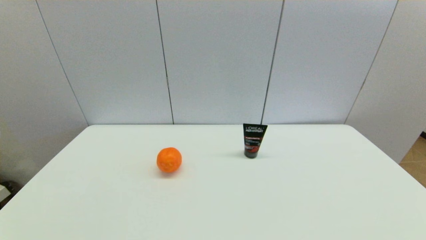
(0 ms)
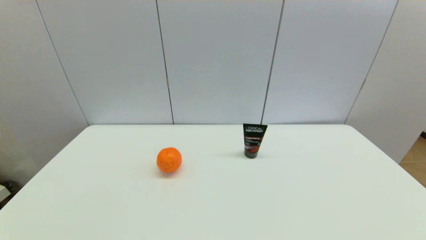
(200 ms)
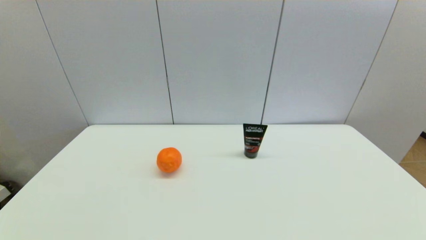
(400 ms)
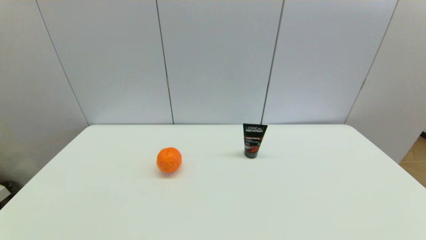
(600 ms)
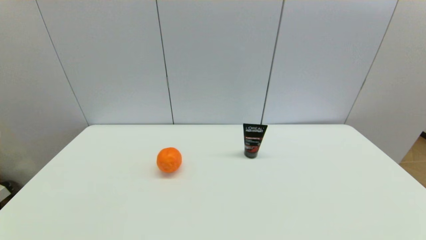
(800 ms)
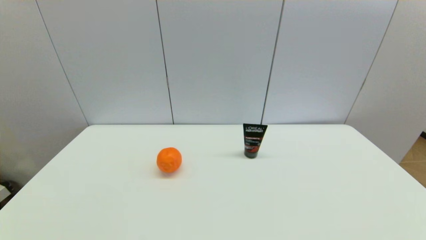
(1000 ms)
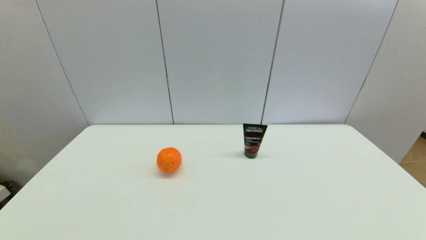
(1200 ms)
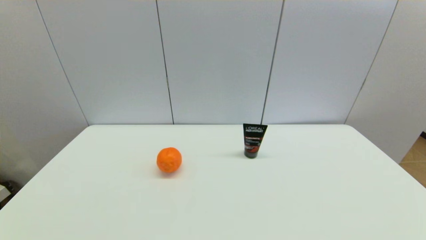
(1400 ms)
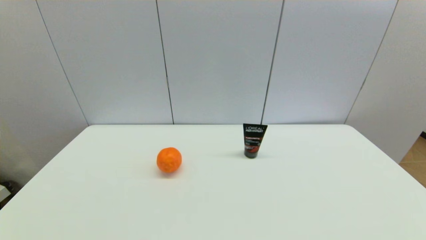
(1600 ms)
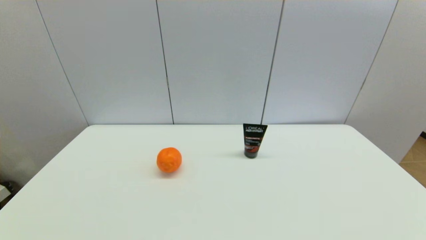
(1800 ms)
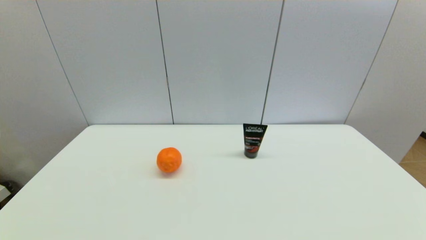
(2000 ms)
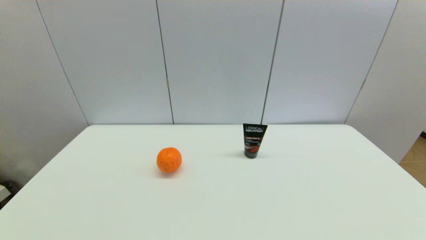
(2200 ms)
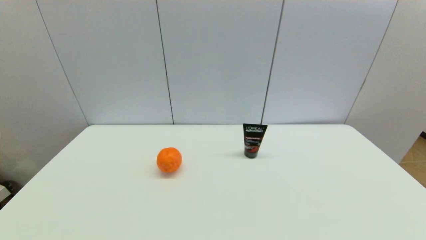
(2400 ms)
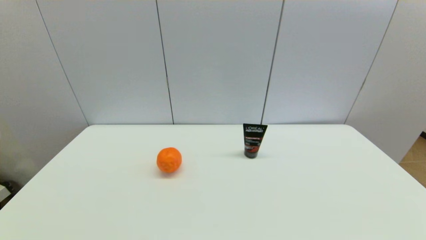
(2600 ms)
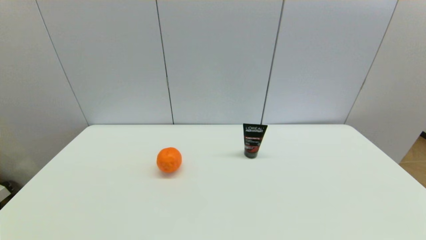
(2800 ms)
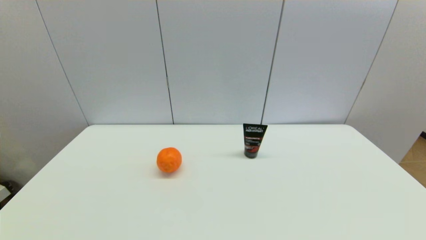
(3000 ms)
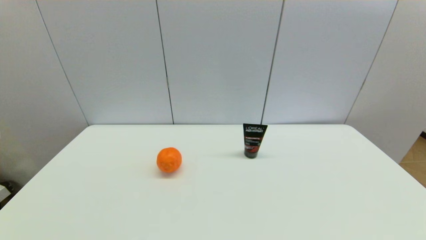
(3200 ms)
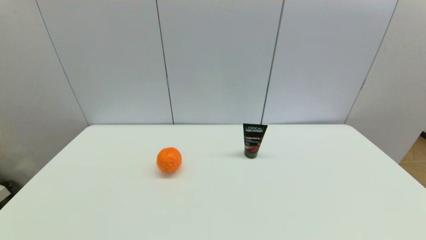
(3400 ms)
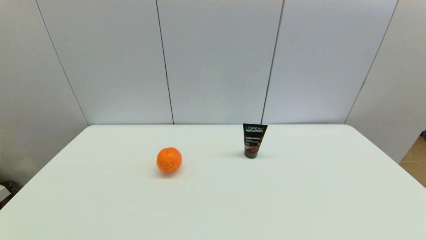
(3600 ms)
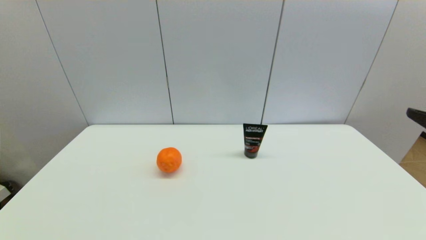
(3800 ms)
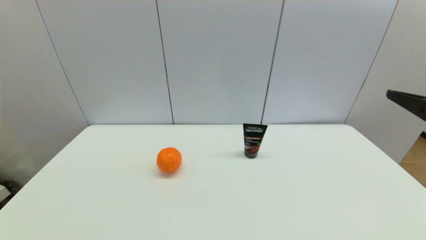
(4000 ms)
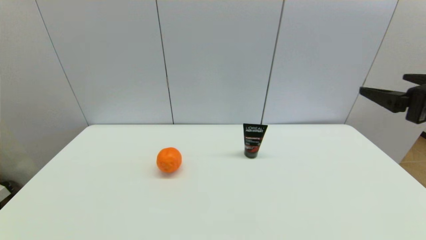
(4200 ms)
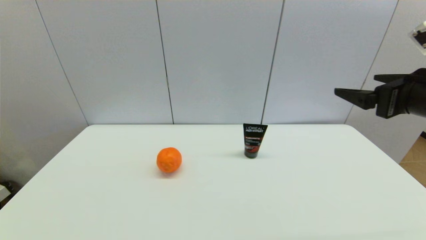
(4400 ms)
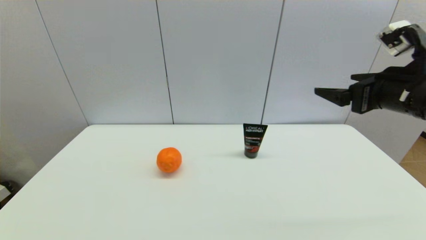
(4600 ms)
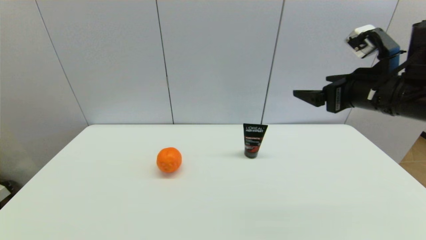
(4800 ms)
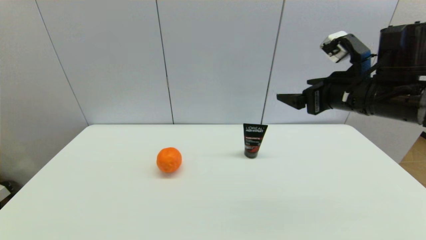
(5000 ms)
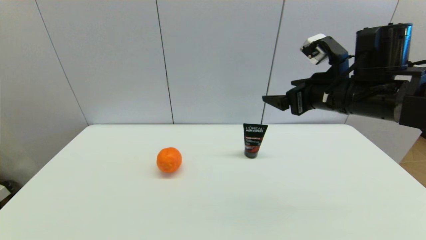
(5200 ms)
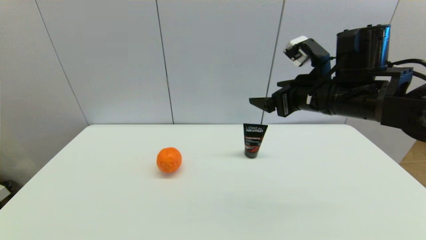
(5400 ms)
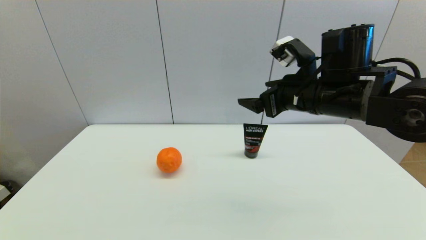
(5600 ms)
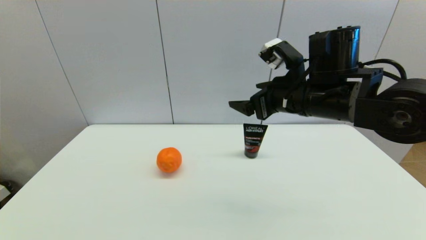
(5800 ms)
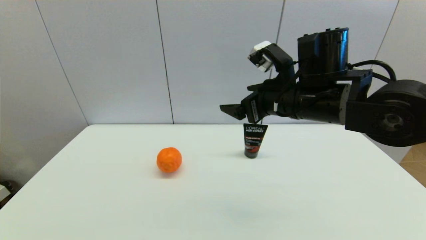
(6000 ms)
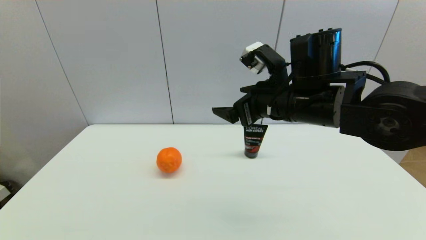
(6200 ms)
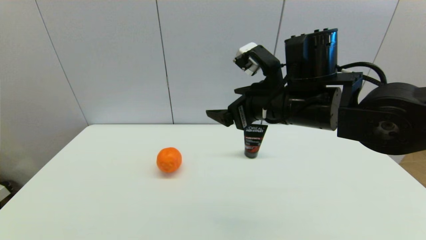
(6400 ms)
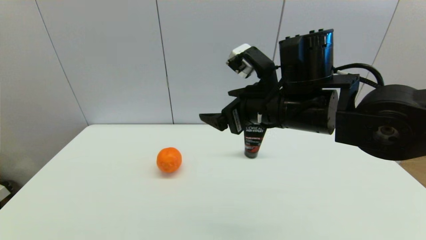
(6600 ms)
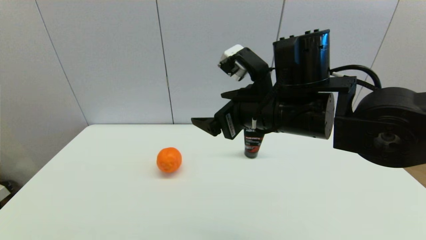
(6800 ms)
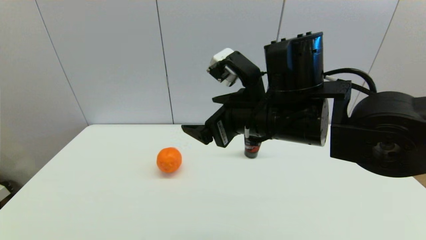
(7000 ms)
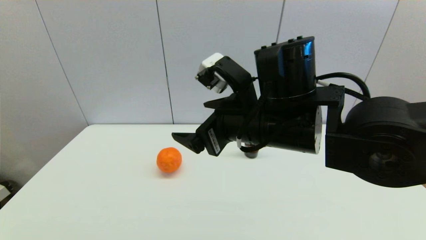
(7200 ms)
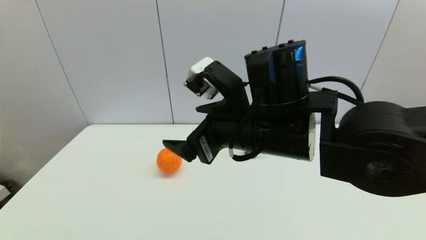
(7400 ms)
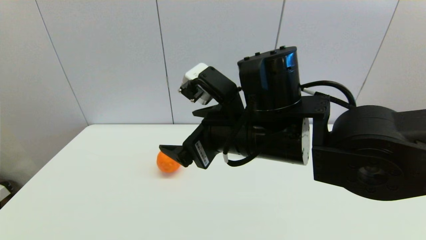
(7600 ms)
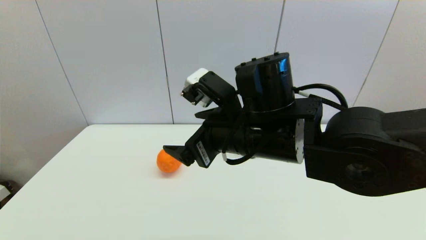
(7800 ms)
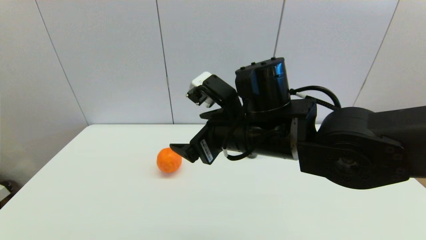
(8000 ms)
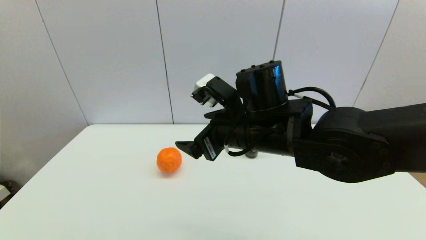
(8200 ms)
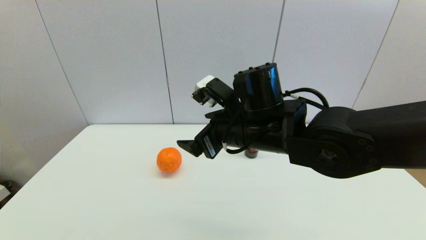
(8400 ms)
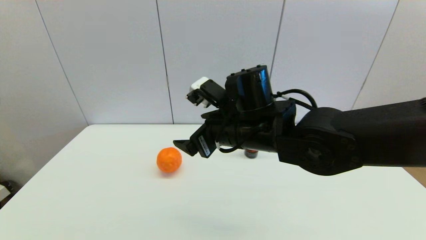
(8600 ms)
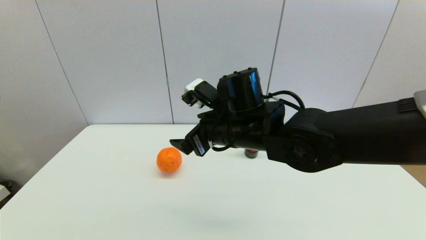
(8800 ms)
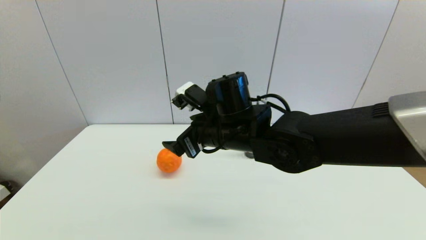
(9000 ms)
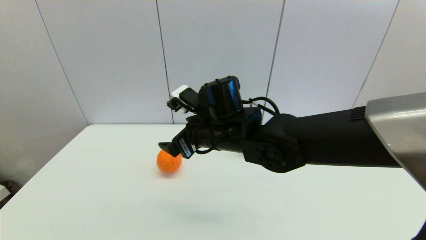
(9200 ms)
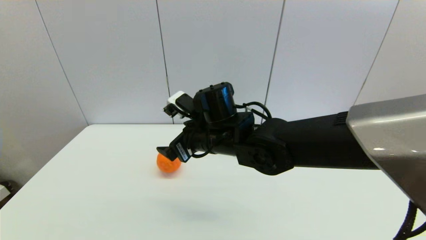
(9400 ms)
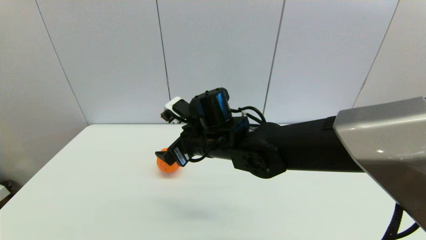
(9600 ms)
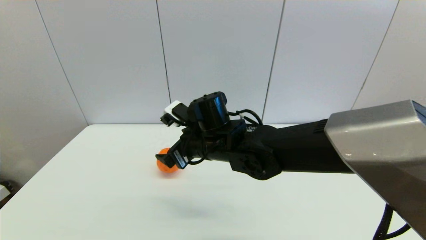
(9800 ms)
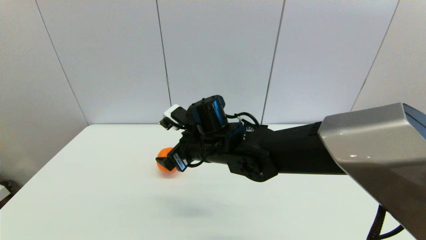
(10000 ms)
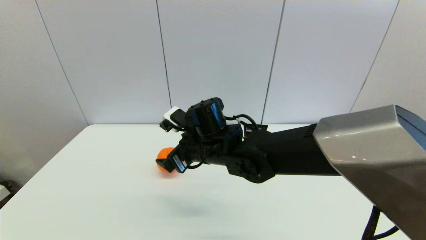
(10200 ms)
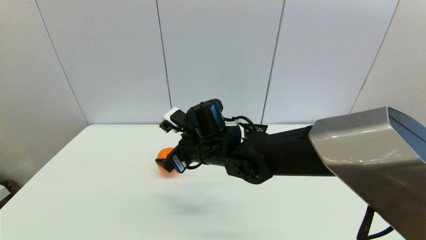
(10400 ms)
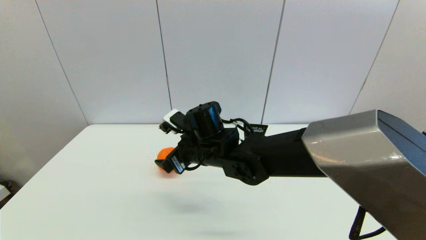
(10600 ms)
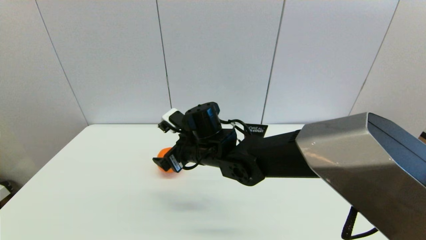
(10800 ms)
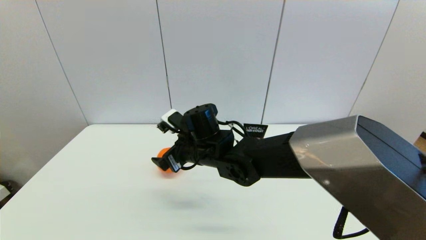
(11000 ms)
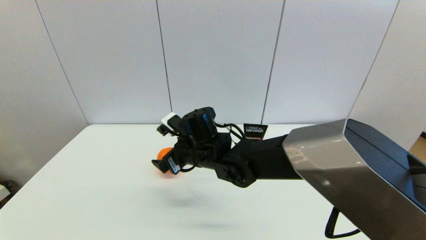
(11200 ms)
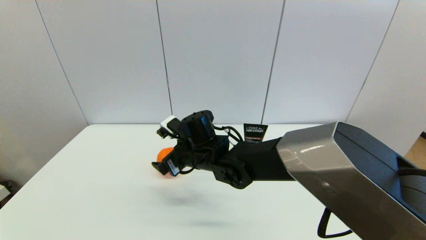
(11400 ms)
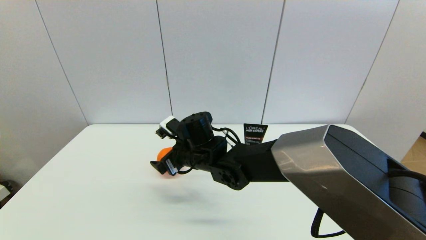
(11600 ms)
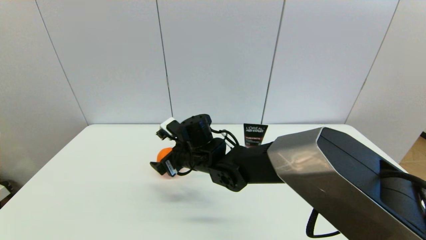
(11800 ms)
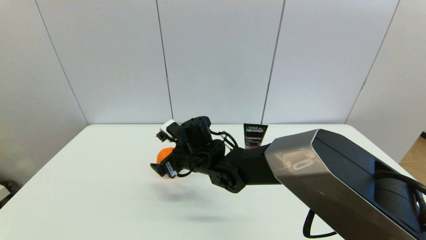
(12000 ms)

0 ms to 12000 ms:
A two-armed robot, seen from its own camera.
3000 ms to 4400 ms: The right gripper heads forward and upward, covering some 20 cm.
4400 ms to 6000 ms: The right gripper goes about 20 cm to the left and forward.
6000 ms to 7600 ms: The right gripper travels to the left and backward by roughly 10 cm.
7600 ms to 9000 ms: The right gripper moves forward, roughly 5 cm.
9000 ms to 10400 ms: The right gripper is displaced downward by roughly 5 cm.
10400 ms to 12000 ms: The right gripper shifts by about 5 cm.

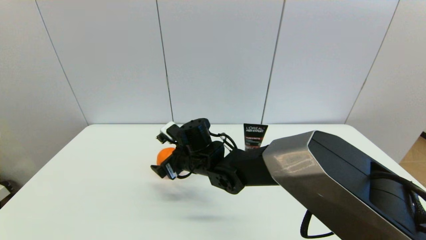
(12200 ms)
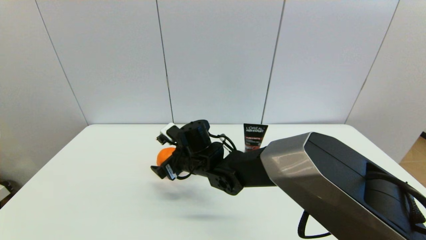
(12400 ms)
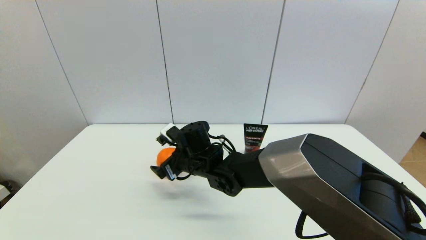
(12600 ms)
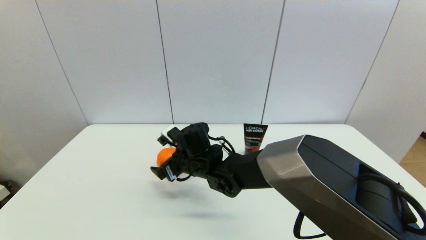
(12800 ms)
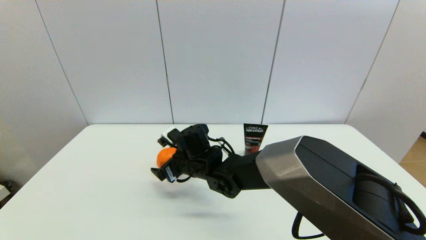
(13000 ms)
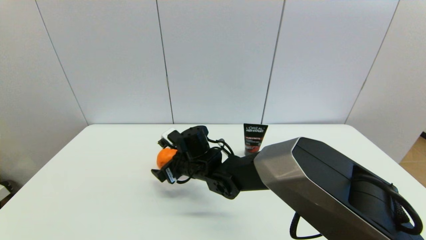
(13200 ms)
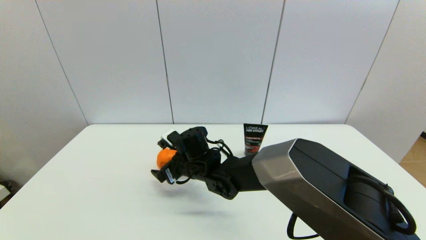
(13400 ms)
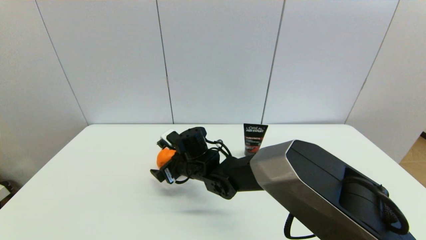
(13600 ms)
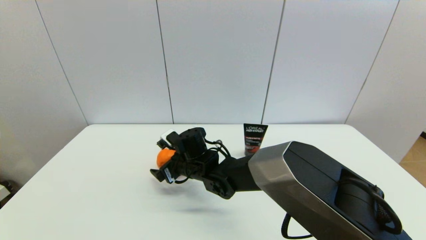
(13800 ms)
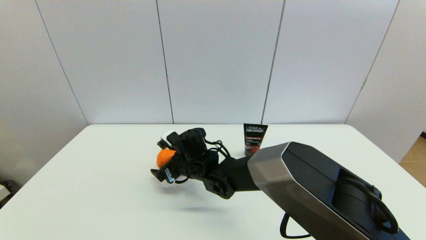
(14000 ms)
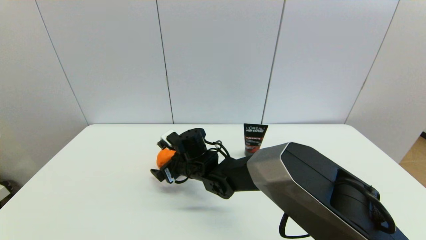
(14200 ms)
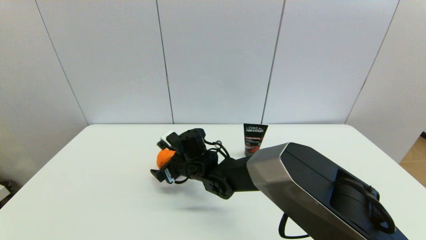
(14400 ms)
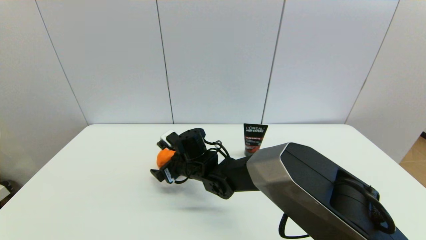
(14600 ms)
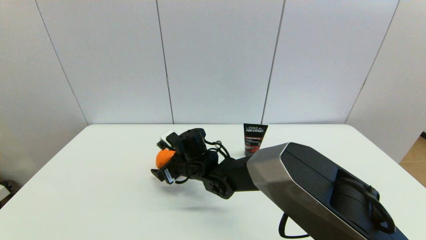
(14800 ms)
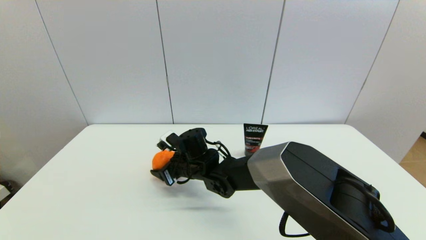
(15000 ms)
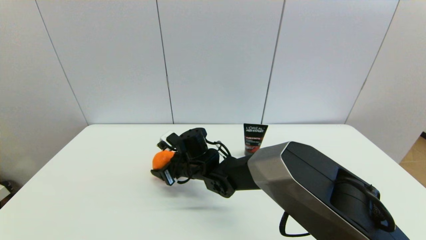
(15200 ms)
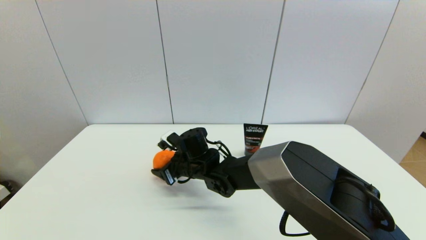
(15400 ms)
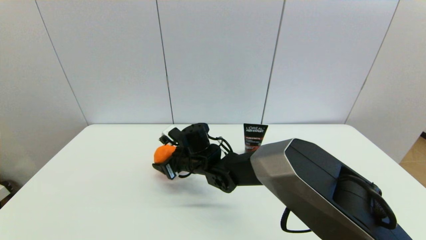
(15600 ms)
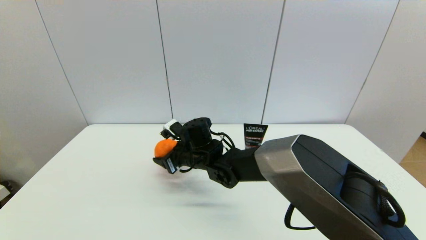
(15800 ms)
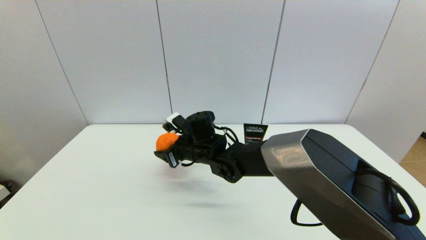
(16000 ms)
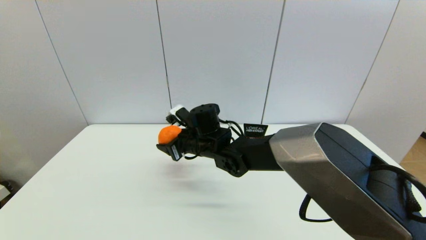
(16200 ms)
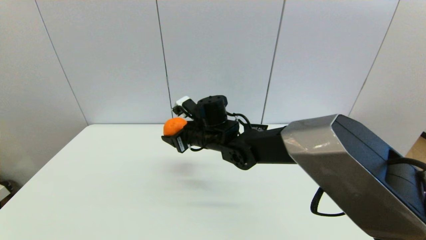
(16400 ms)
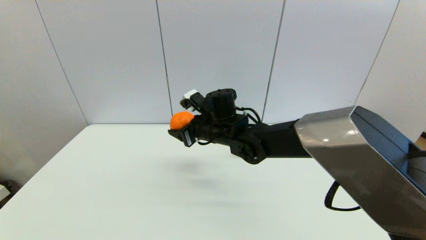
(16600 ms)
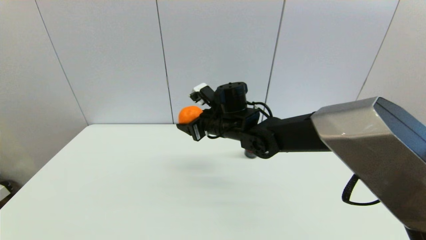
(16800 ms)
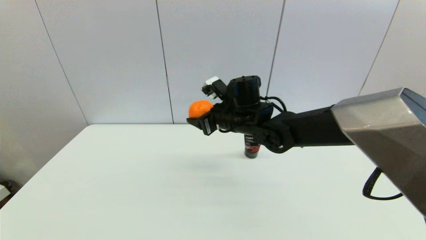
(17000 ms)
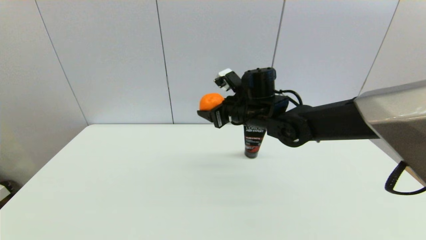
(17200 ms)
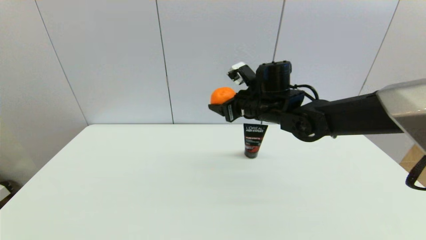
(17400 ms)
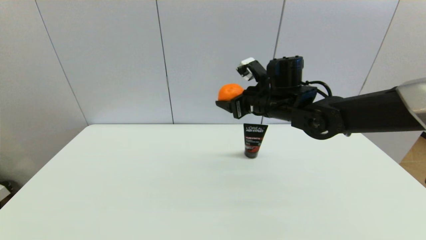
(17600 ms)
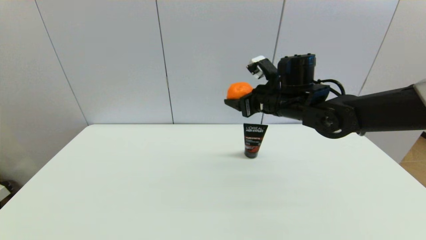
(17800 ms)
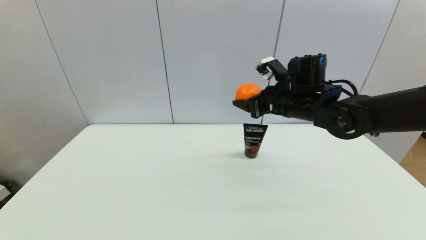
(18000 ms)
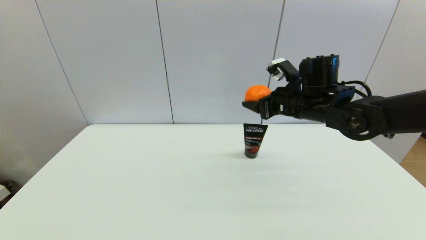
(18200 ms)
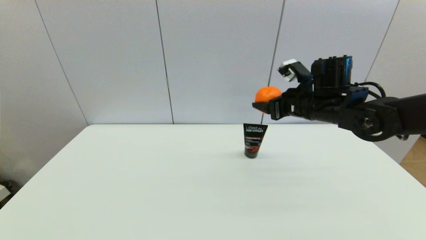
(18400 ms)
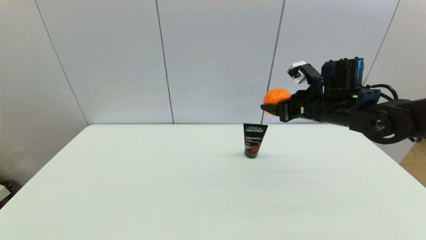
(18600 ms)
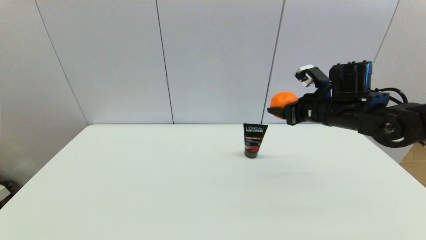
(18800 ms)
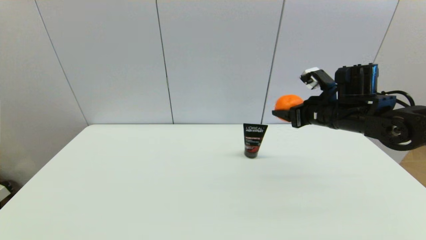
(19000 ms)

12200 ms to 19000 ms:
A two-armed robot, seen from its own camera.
Step, 12200 ms to 15200 ms: Grasp the orange with right gripper.
12200 ms to 13600 ms: There are only small adjustments of the grippers.
13600 ms to 15000 ms: The right gripper closes its fingers.
15000 ms to 16200 ms: The right gripper moves upward, about 5 cm.
16200 ms to 17600 ms: The right gripper is displaced to the right and upward by roughly 20 cm.
17600 ms to 19000 ms: The right gripper goes roughly 10 cm to the right.
